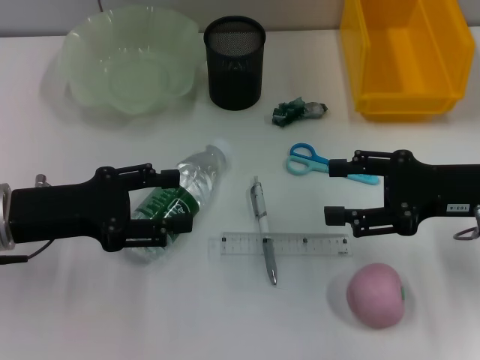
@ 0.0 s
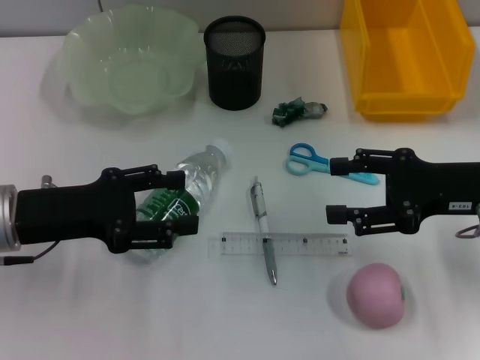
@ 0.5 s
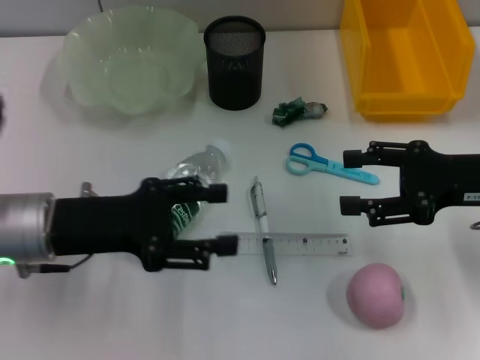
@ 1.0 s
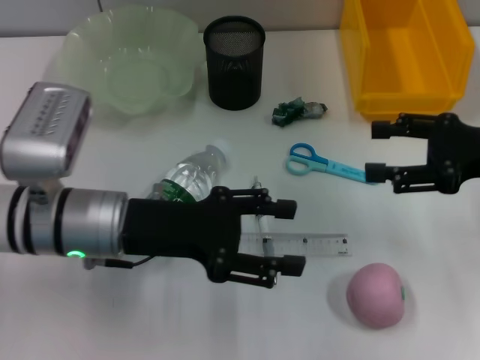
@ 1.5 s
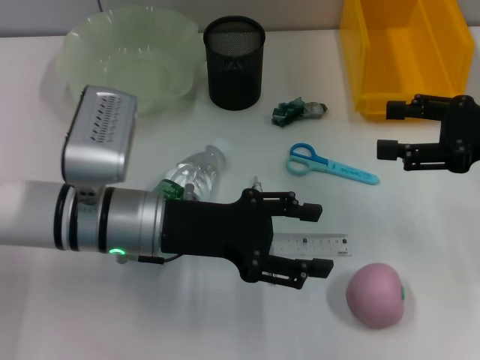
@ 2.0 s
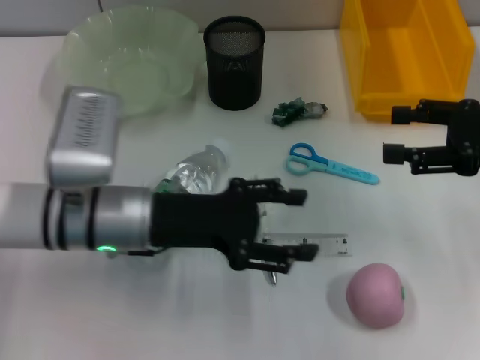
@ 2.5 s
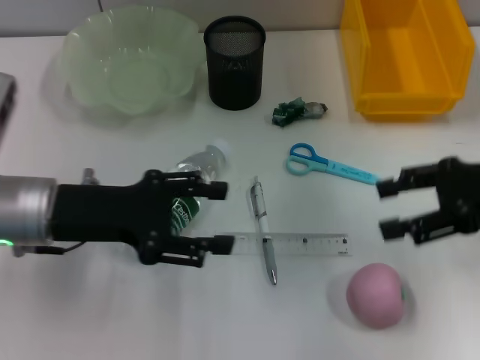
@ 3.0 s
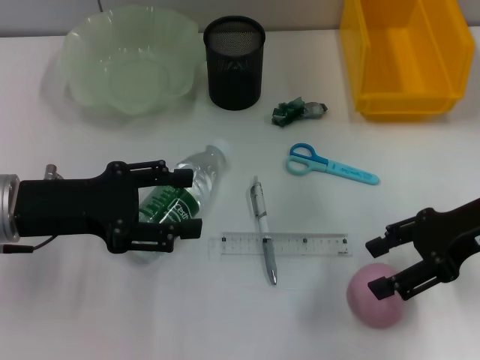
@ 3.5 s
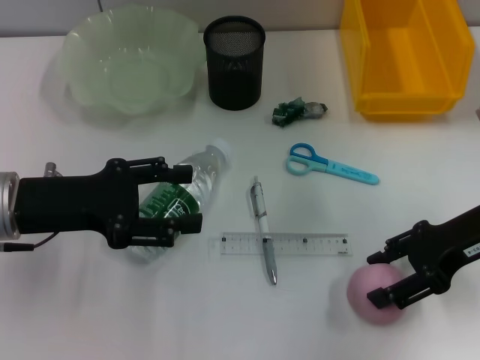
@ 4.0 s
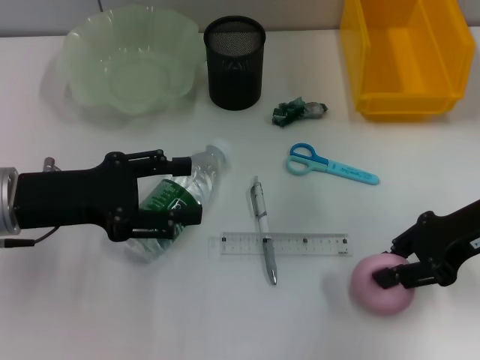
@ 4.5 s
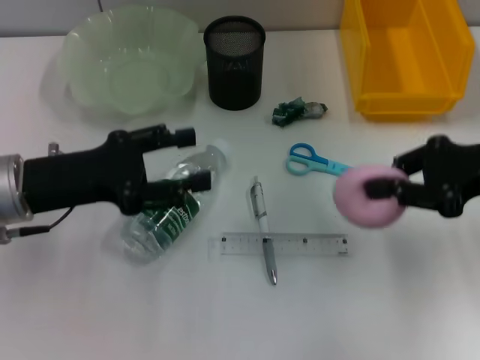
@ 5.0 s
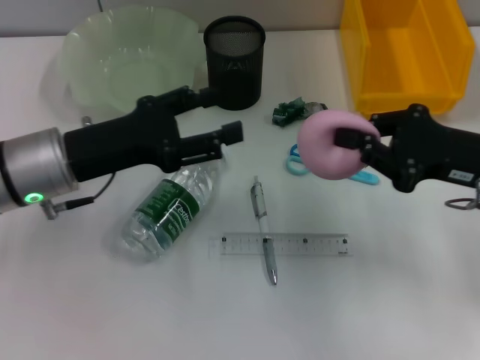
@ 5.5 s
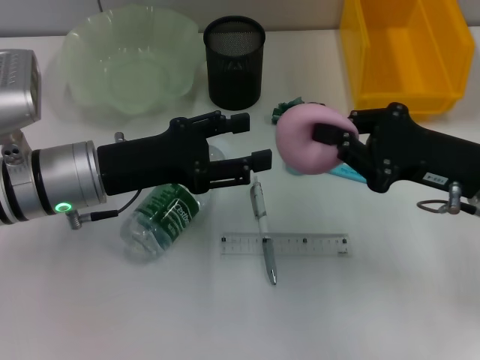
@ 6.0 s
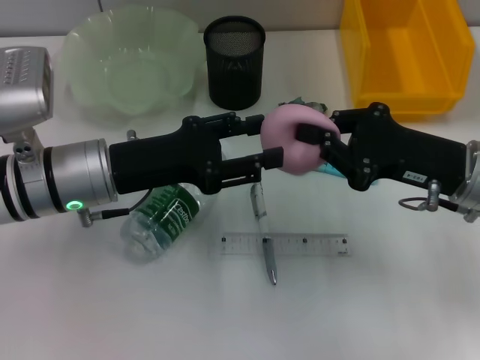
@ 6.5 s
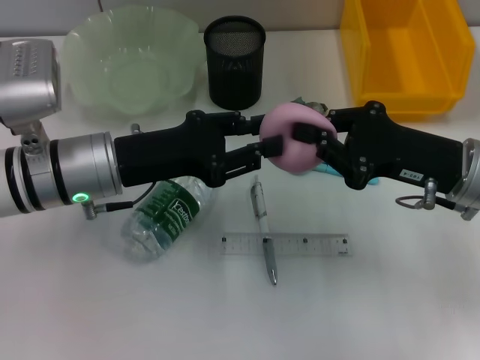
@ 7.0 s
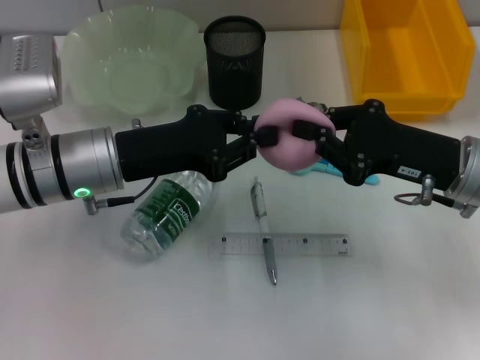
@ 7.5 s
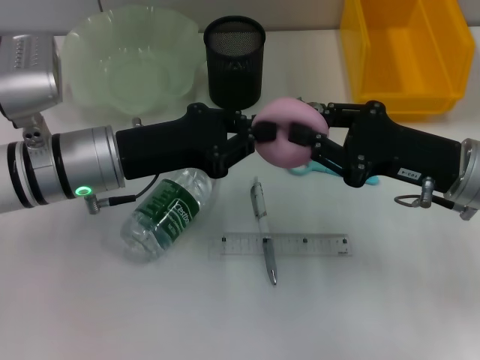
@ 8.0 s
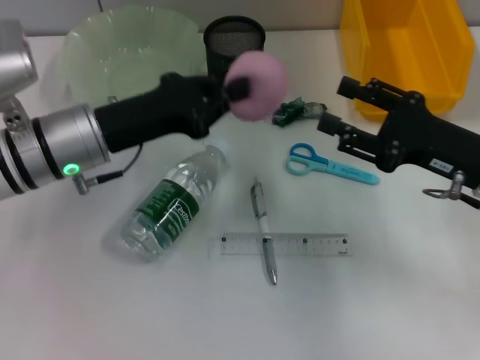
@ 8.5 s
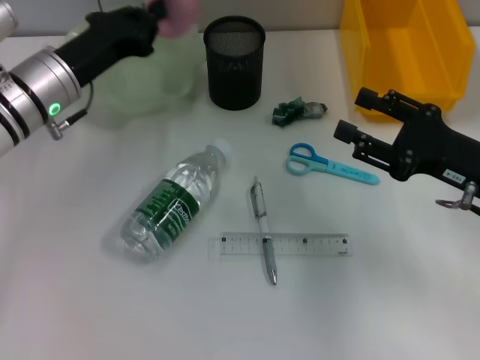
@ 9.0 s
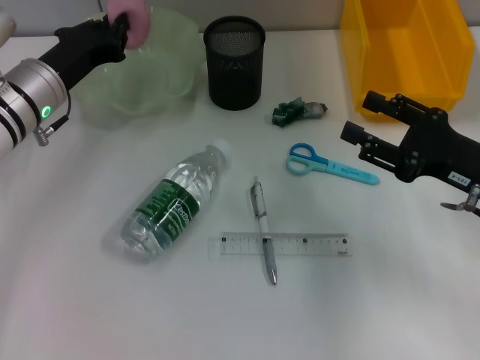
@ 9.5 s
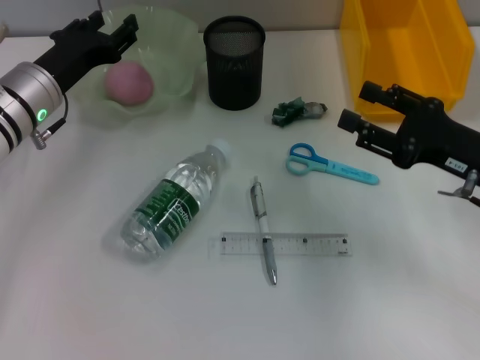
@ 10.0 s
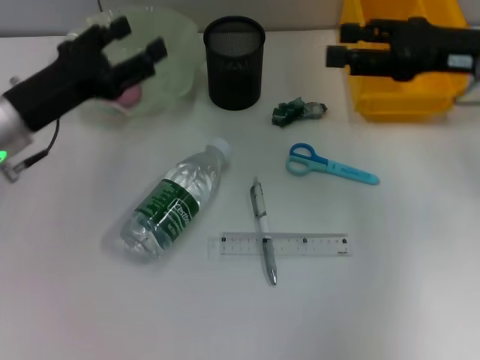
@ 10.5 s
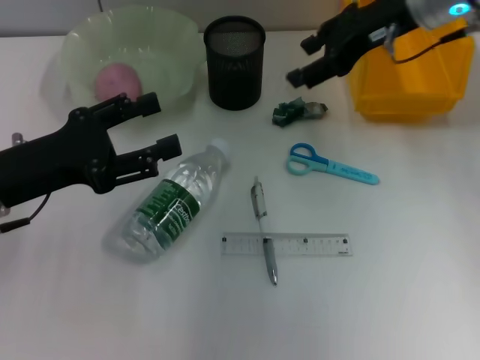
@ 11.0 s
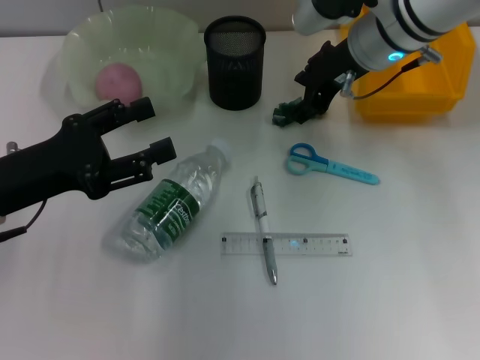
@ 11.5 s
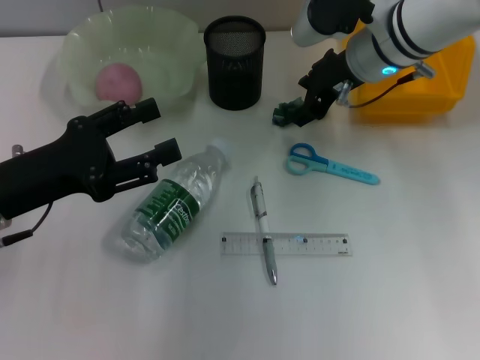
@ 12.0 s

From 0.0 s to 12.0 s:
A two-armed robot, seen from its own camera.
Step, from 0.0 s to 4.5 s: Grab the peach with the right hand.
Step, from 5.0 s to 8.0 s: Pass the peach from the right hand to the left hand.
Step, from 8.5 s to 9.5 s: Place the peach into the fruit bowl with the left hand.
From 0.0 s to 2.0 s: The right gripper moves some 5 cm, while the left gripper shifts approximately 10 cm to the right.
From 2.0 s to 4.0 s: The right gripper moves approximately 5 cm. The left gripper moves to the left, some 10 cm.
From 4.0 s to 6.0 s: The left gripper shifts some 5 cm to the right. Meanwhile the right gripper closes up.
From 6.0 s to 8.0 s: The left gripper closes up.
From 8.0 s to 10.0 s: The right gripper opens; the left gripper is displaced forward and to the left by roughly 10 cm, and opens its fingers.
From 10.0 s to 12.0 s: The right gripper shifts approximately 20 cm forward, to the left and upward. The left gripper moves backward, roughly 10 cm, and opens up.

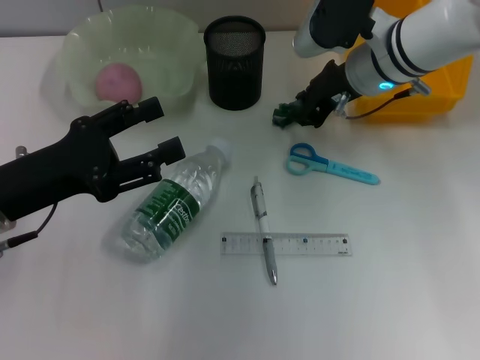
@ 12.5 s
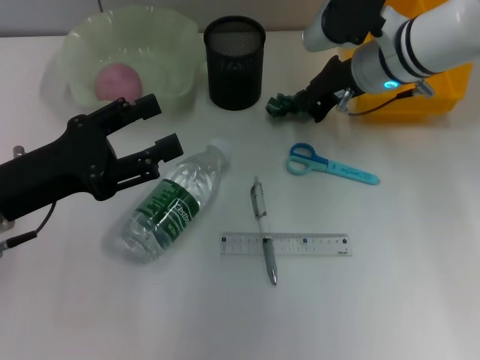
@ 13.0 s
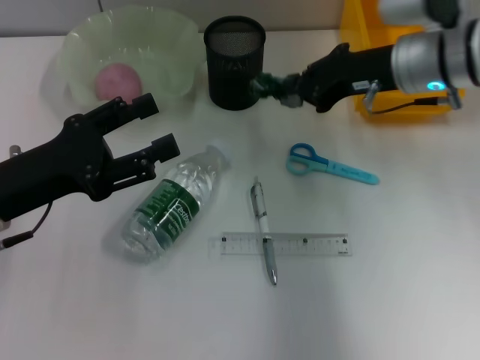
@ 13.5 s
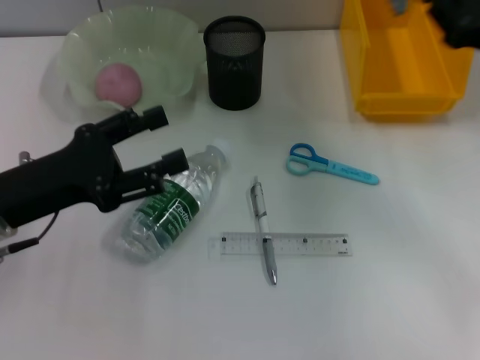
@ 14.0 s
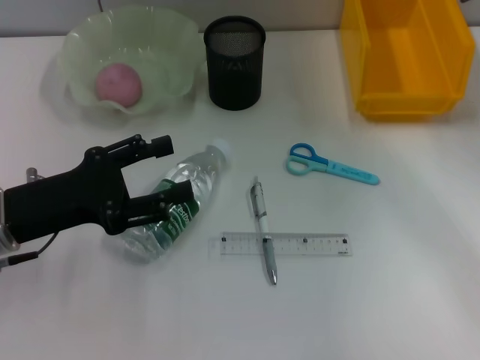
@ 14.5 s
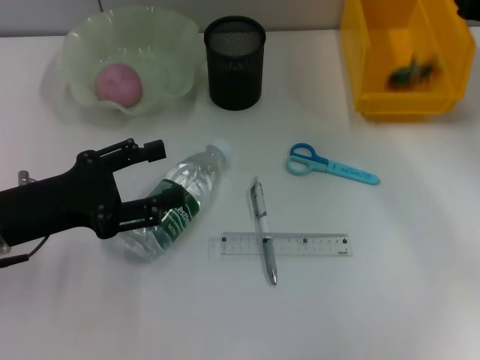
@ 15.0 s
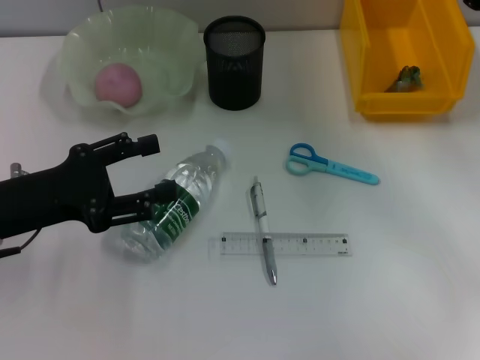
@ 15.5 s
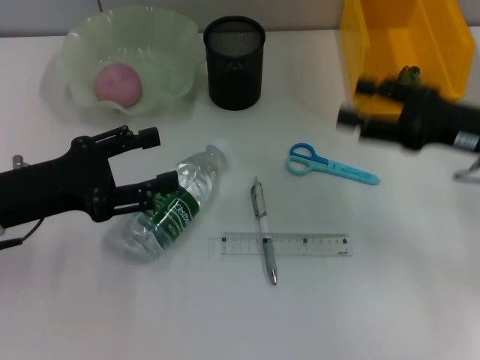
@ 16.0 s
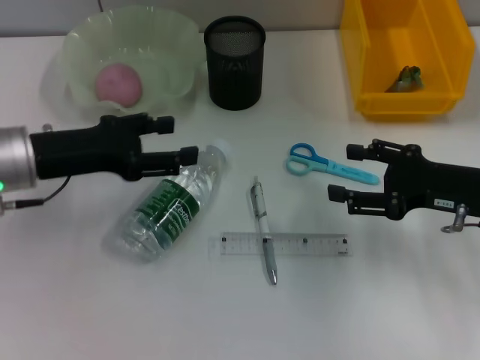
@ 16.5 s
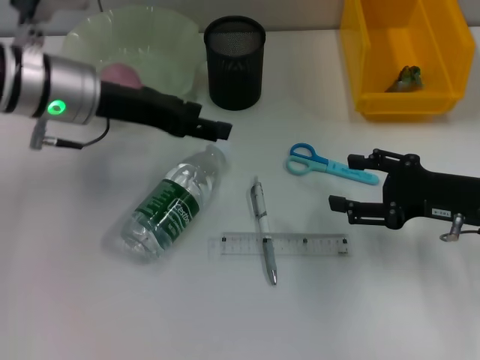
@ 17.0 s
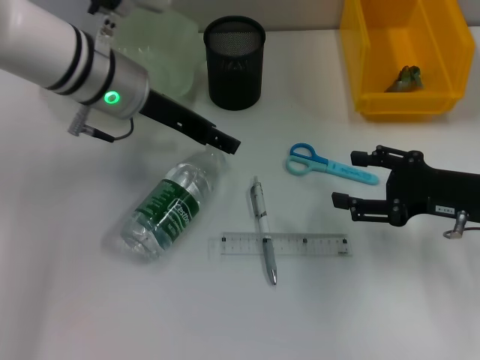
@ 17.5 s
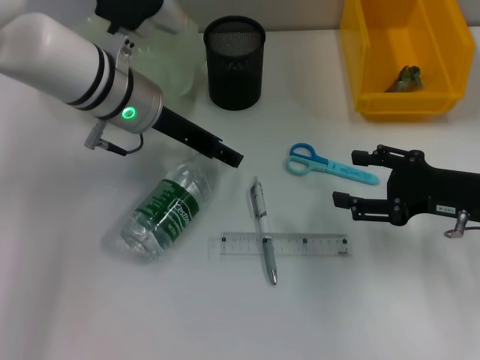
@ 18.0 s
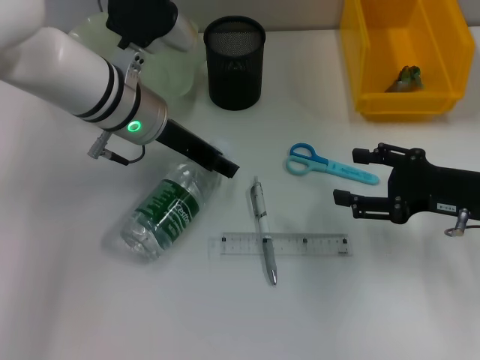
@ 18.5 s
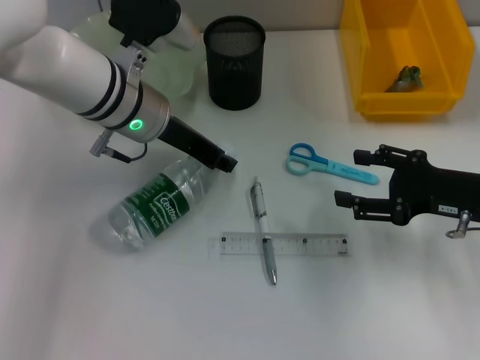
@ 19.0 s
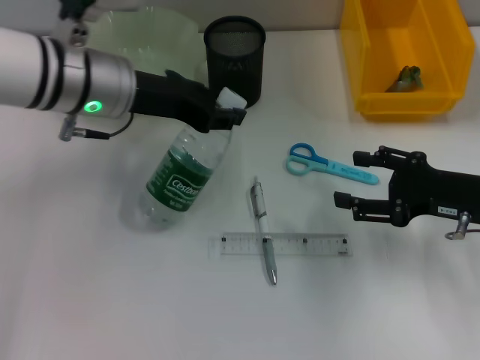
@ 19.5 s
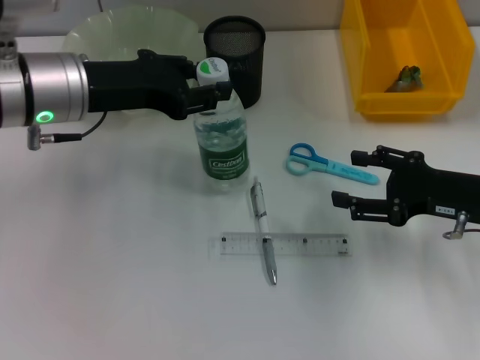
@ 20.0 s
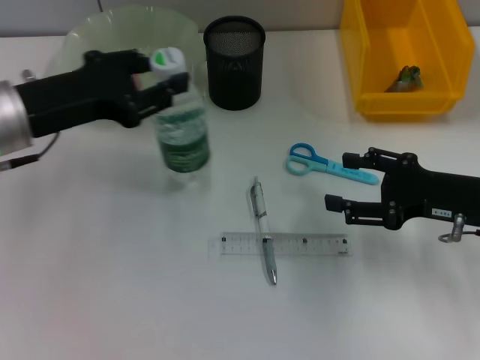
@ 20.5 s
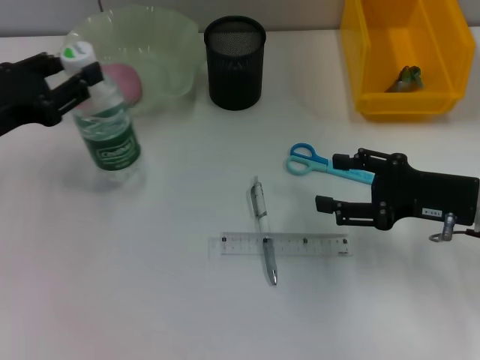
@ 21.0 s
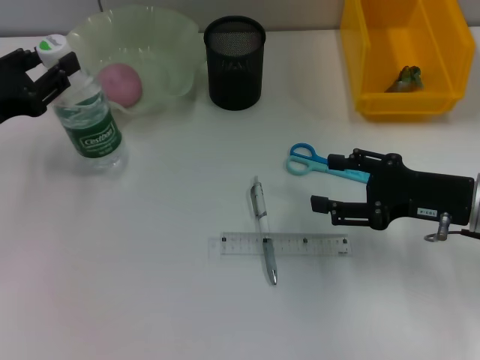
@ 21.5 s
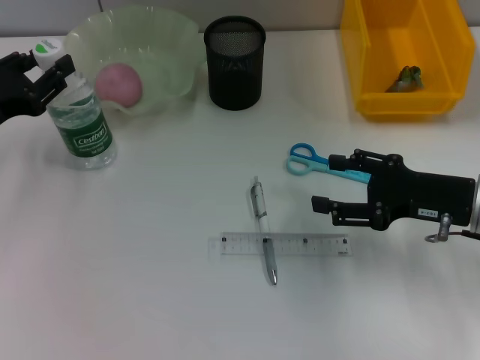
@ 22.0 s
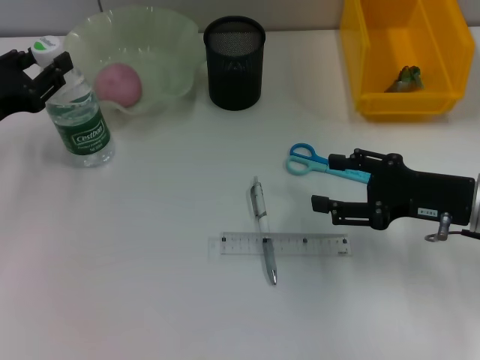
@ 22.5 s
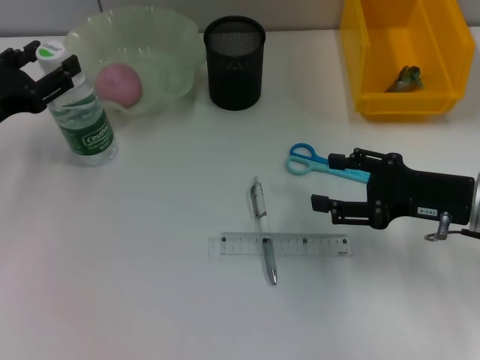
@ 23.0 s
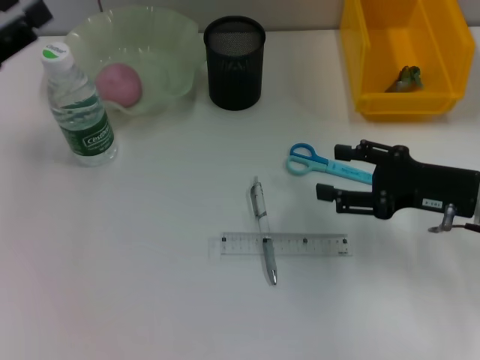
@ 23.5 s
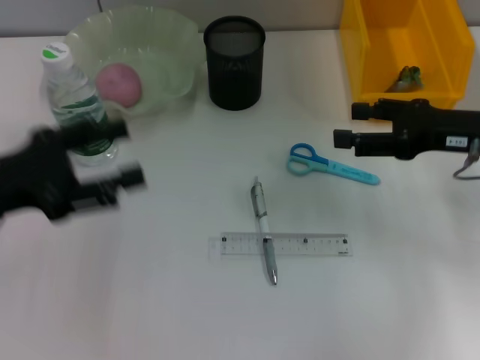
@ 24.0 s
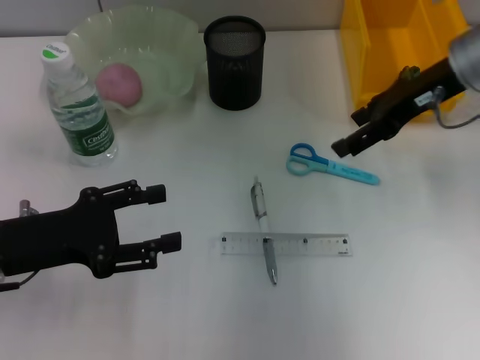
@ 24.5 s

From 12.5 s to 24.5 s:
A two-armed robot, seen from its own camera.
Step, from 13.5 s to 15.0 s: Place the plastic into the trash can with the right hand.
Step, from 15.5 s to 18.5 s: Grab the water bottle with the left hand.
Step, from 19.0 s to 23.0 s: Place the water bottle on the table with the left hand.
From 12.5 s to 14.5 s: The right gripper goes some 20 cm to the right and backward, and closes its fingers.
From 14.5 s to 16.5 s: The left gripper moves forward, approximately 5 cm; the right gripper heads to the left, backward and downward, covering some 10 cm, and opens its fingers.
From 16.5 s to 18.5 s: The left gripper shifts approximately 15 cm to the right and forward.
From 18.5 s to 20.5 s: The left gripper travels to the left and backward by roughly 15 cm, and closes its fingers.
From 20.5 s to 22.5 s: The left gripper travels to the left and downward by about 10 cm.
From 22.5 s to 24.5 s: The left gripper heads backward, covering some 5 cm, and opens. The right gripper is displaced upward and forward by some 15 cm.

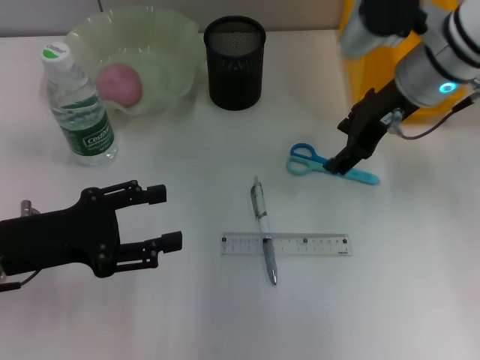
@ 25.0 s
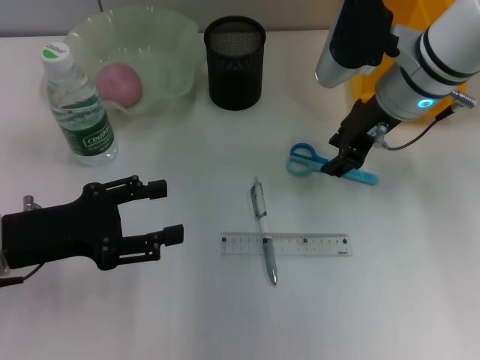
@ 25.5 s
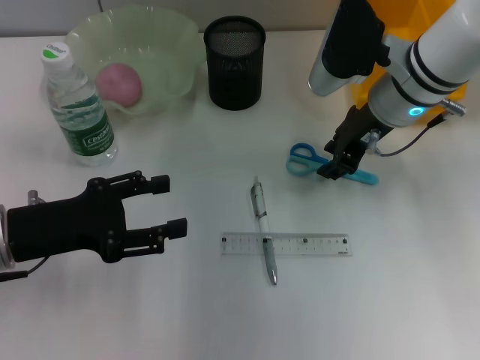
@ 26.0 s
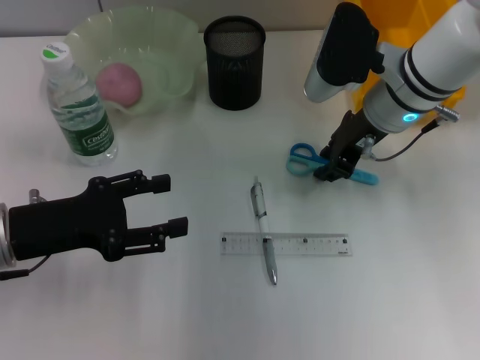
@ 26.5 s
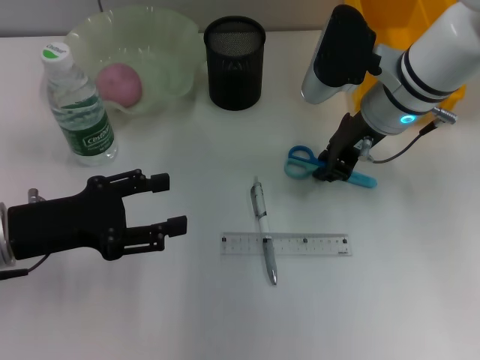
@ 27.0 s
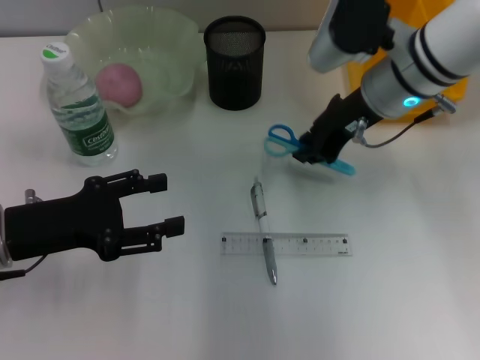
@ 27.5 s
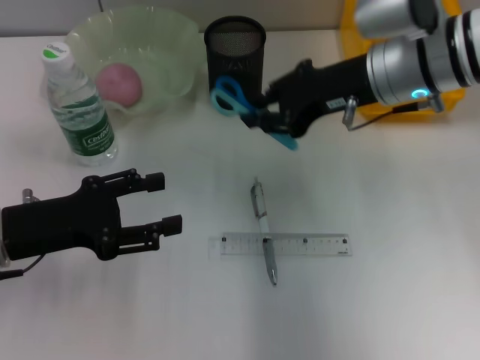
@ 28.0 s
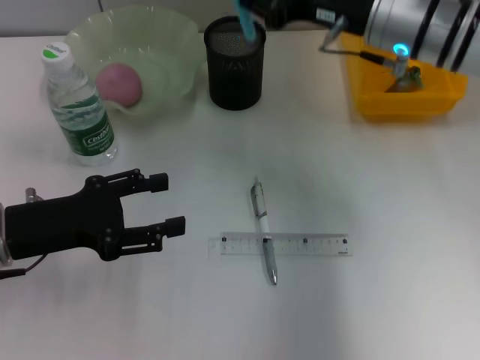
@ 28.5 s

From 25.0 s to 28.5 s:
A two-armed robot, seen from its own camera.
Step, from 25.0 s to 27.0 s: Grab the blue scissors with the right hand.
From 25.0 s to 27.0 s: The right gripper closes up.
